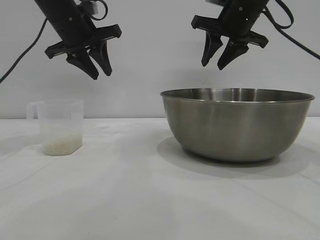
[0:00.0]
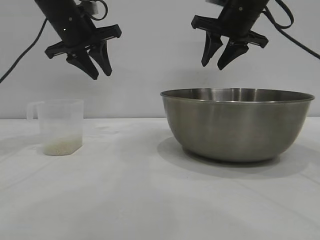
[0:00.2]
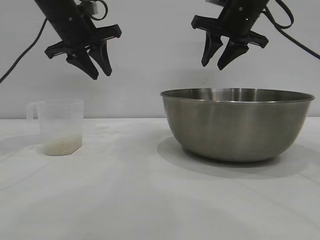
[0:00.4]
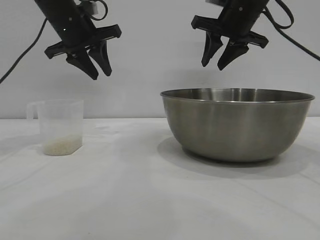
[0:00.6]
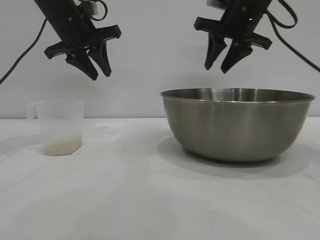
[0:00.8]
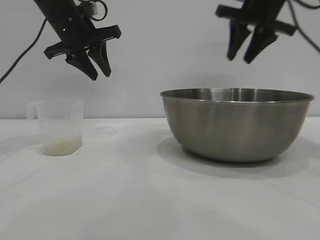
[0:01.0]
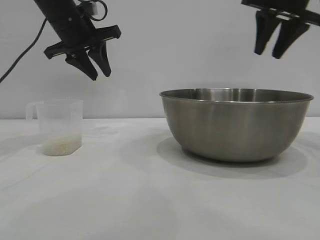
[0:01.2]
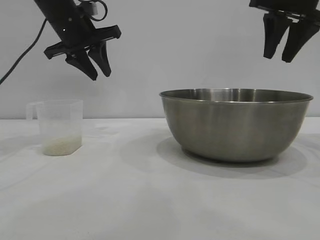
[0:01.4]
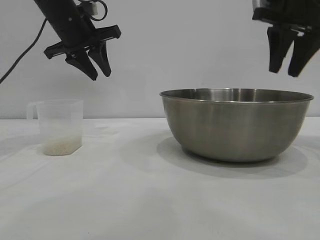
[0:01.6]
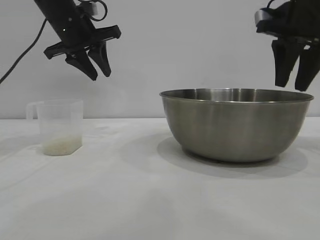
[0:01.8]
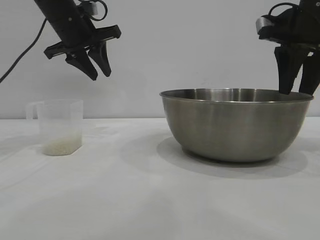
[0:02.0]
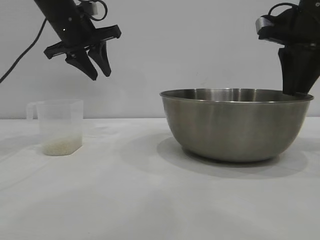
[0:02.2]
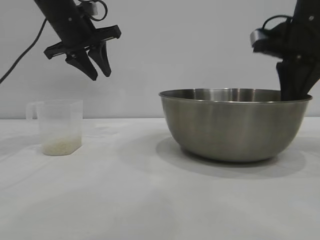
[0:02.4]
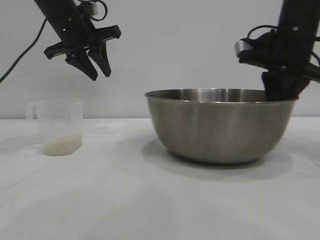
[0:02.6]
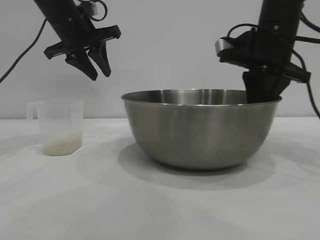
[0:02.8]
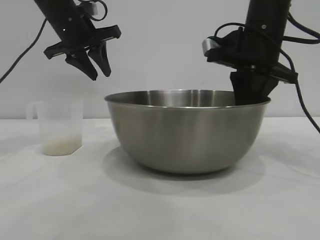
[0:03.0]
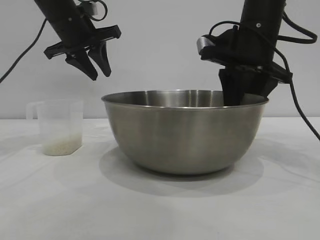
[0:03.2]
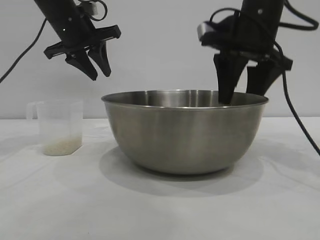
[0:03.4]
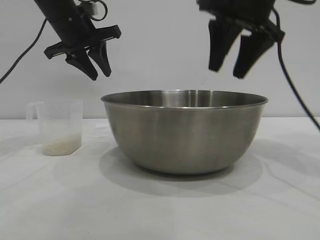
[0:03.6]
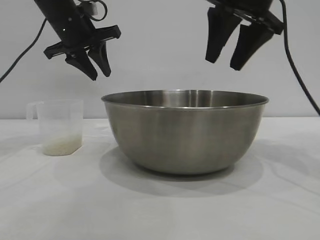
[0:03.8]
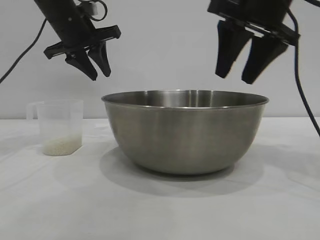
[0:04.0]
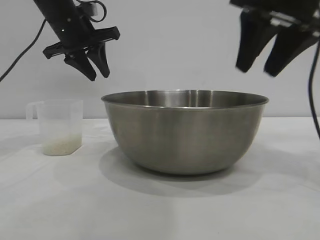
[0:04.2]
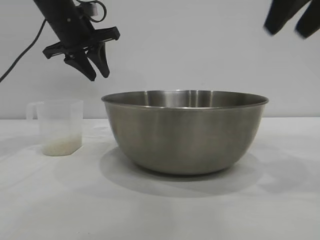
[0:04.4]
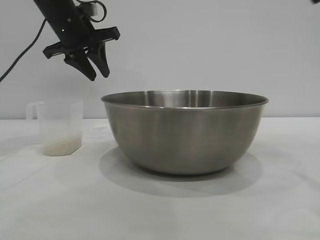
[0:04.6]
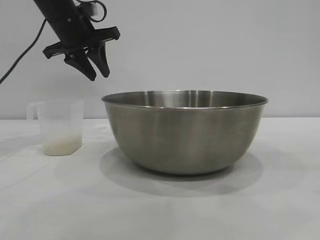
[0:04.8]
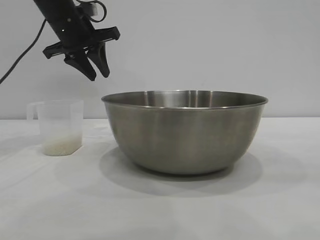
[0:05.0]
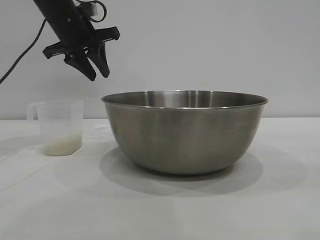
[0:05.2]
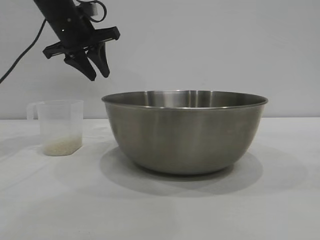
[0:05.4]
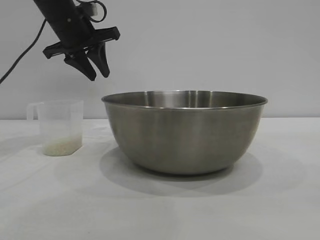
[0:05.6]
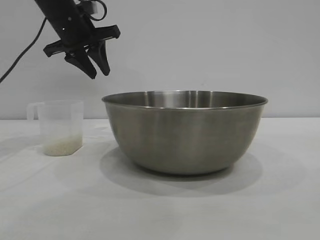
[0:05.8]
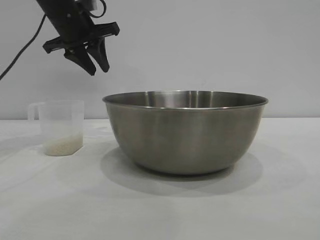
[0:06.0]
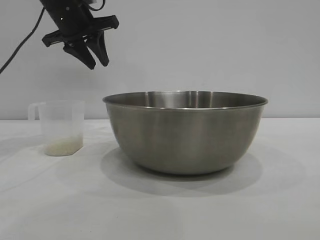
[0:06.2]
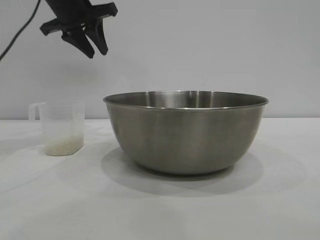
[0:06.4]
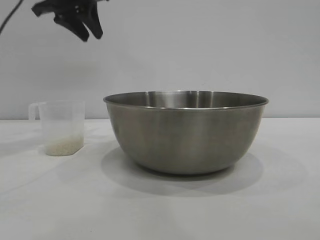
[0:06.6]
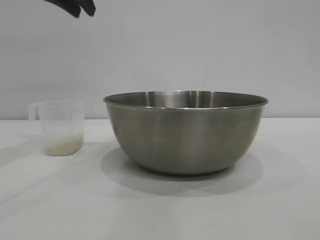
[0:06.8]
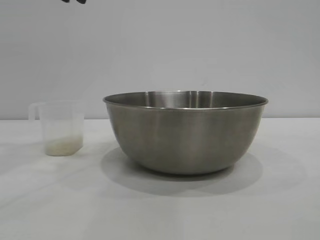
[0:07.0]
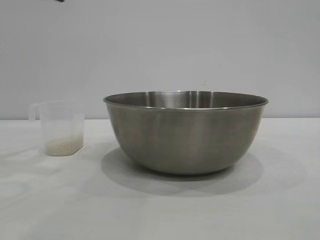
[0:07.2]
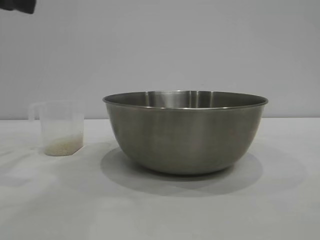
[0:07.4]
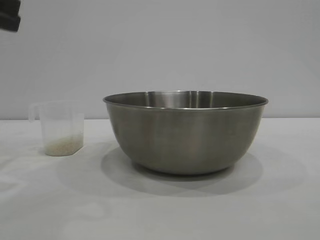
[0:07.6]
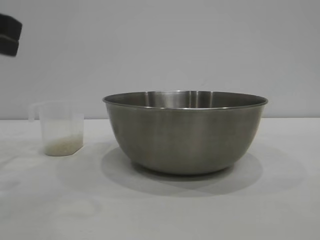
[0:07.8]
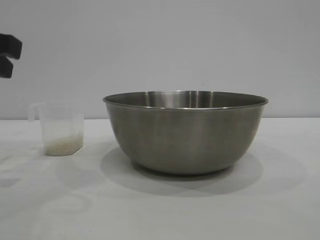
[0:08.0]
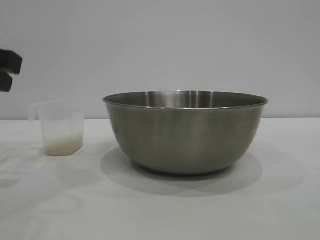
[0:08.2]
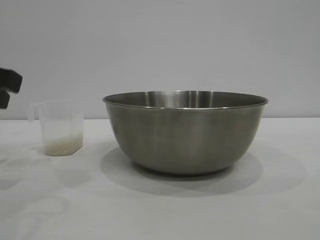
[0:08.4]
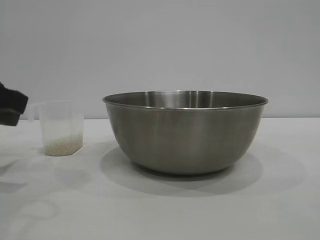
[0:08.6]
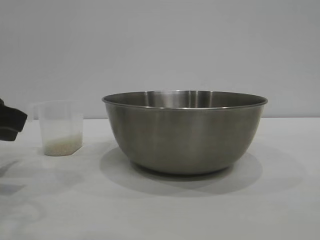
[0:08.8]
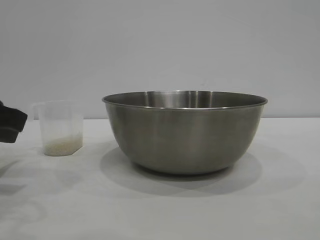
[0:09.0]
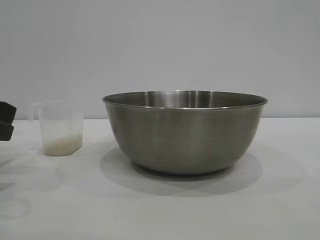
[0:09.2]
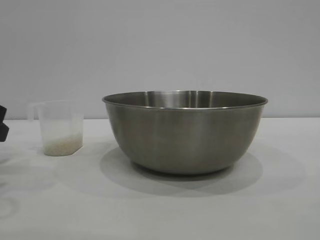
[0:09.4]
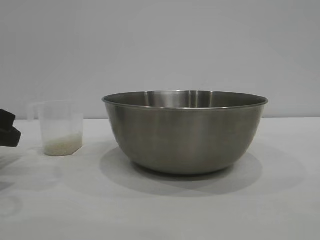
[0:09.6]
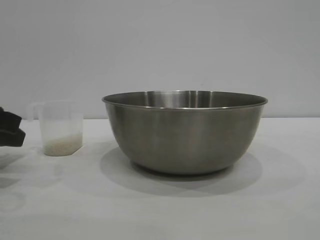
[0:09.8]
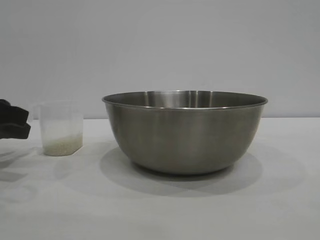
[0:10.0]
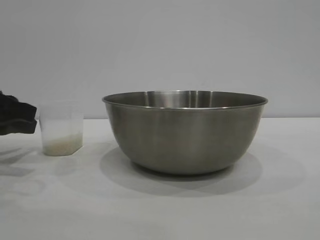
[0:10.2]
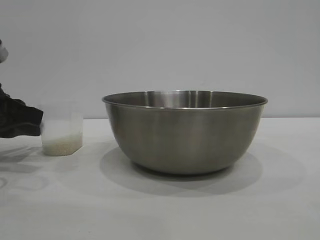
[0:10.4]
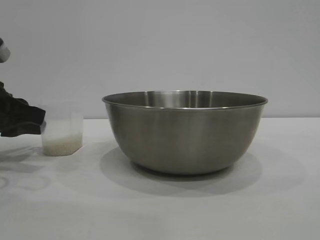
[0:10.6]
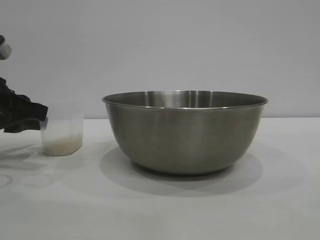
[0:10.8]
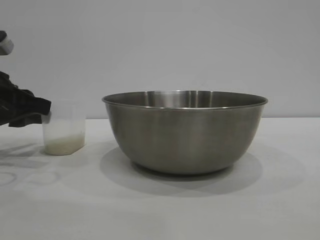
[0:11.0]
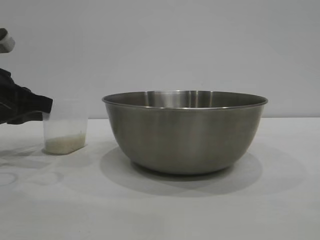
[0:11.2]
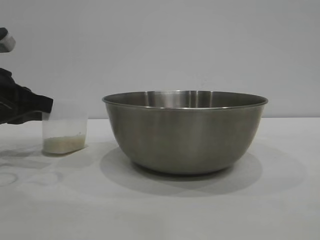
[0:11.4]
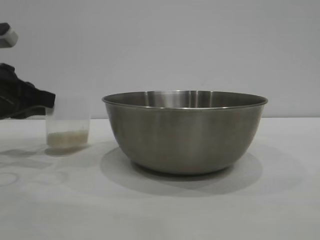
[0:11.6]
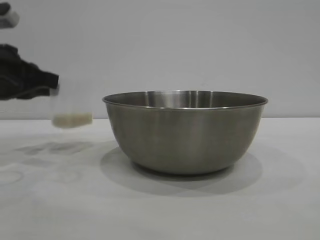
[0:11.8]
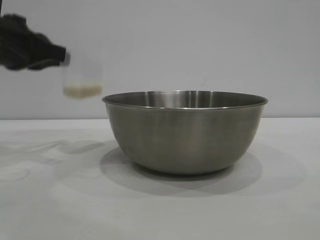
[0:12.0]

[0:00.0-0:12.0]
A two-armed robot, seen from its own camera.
Task of the whole recording: the right gripper grasp the rice container and place it in the center of the table, the left gripper grasp the rice scoop and pour the rice into the rice container.
Step, 0:00.0 to 0:03.4: Move the bowl to the center of view with the right gripper.
Step, 0:03.6 to 0:12.0: Pick up the cup with rice in it with the left gripper.

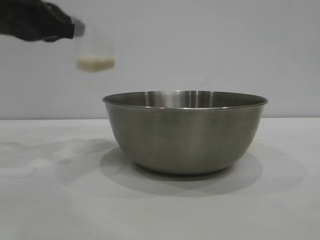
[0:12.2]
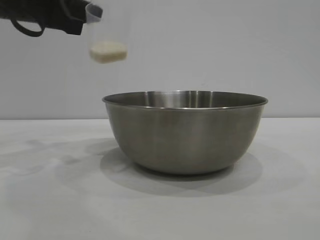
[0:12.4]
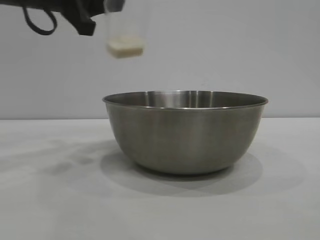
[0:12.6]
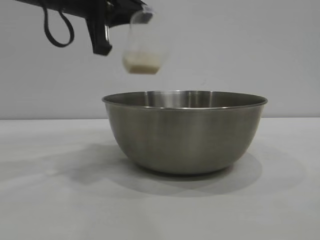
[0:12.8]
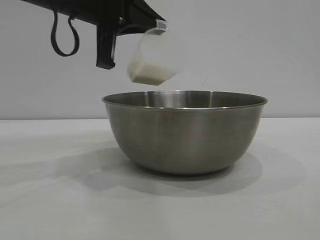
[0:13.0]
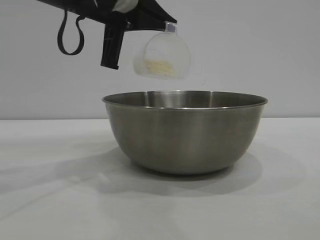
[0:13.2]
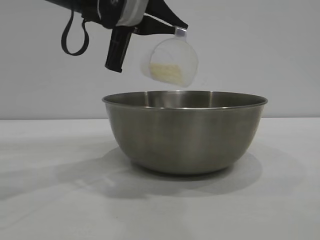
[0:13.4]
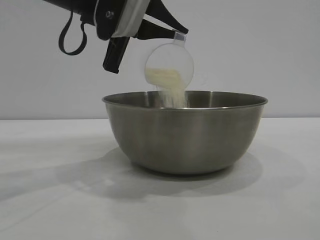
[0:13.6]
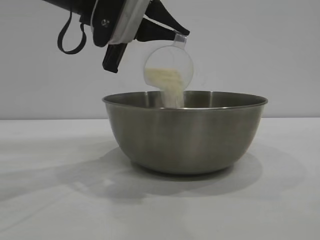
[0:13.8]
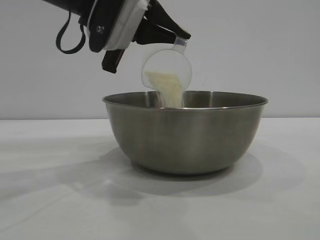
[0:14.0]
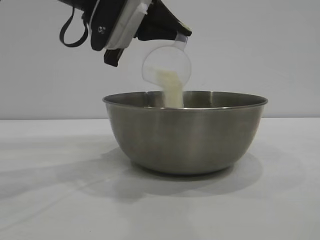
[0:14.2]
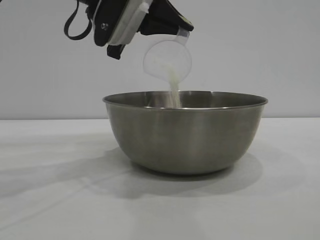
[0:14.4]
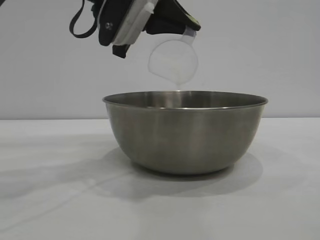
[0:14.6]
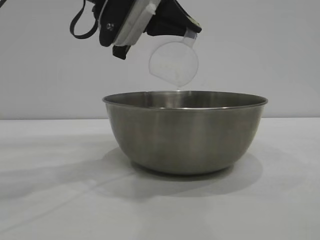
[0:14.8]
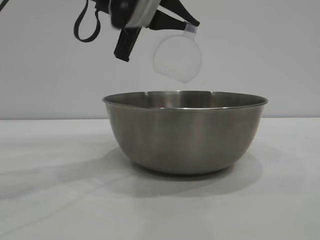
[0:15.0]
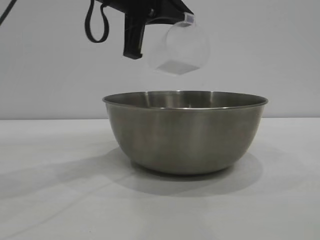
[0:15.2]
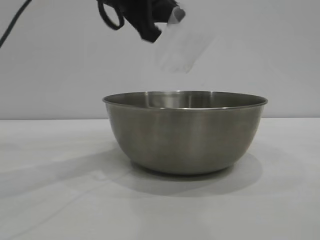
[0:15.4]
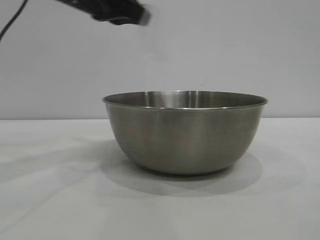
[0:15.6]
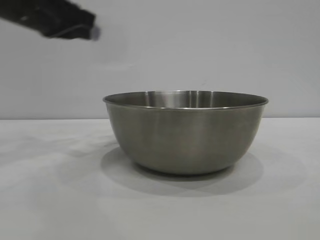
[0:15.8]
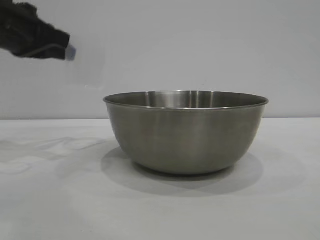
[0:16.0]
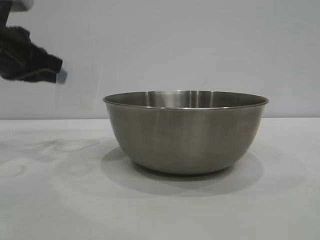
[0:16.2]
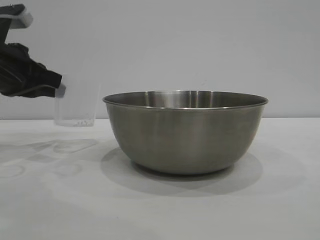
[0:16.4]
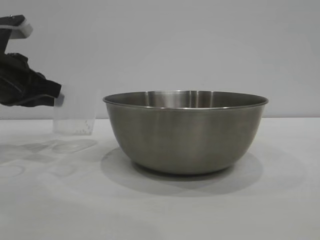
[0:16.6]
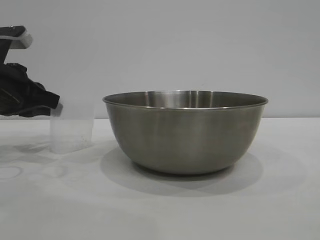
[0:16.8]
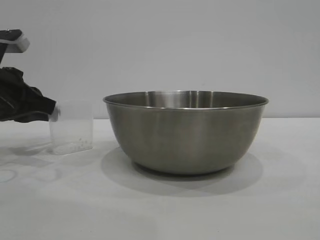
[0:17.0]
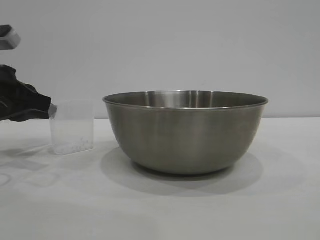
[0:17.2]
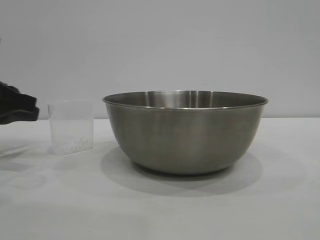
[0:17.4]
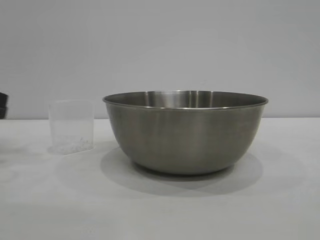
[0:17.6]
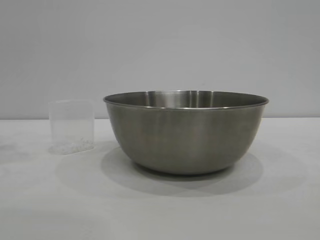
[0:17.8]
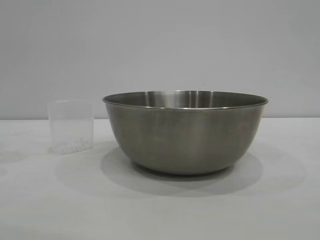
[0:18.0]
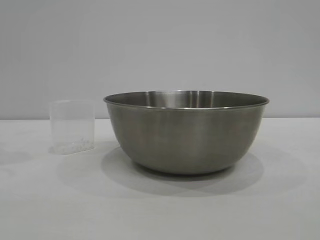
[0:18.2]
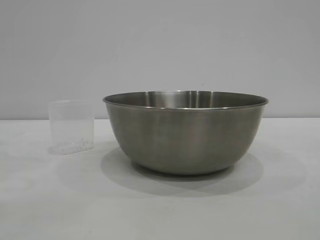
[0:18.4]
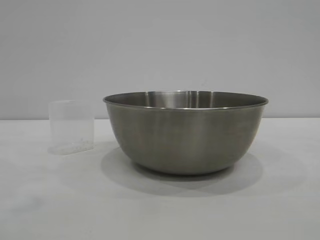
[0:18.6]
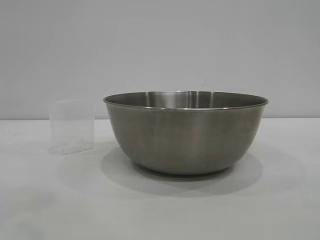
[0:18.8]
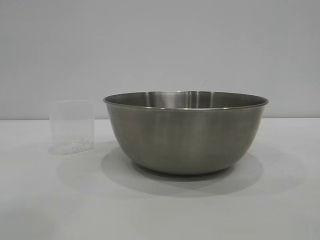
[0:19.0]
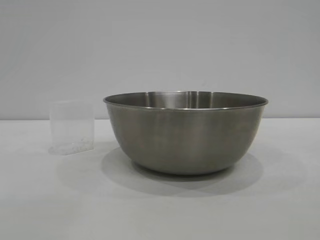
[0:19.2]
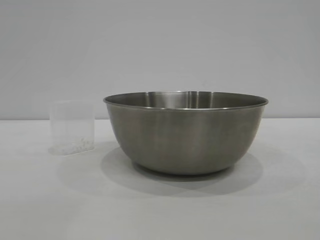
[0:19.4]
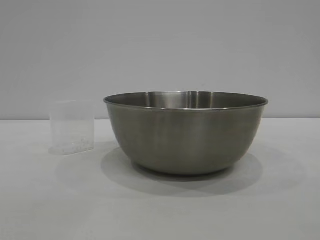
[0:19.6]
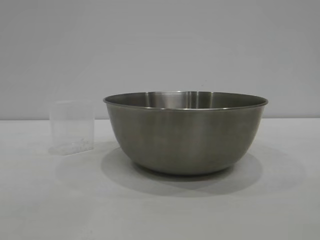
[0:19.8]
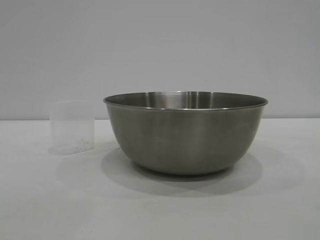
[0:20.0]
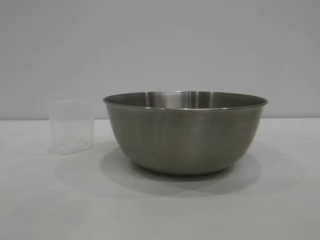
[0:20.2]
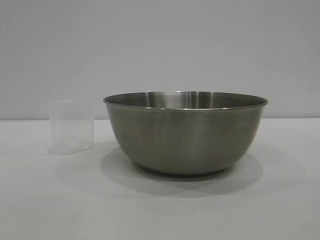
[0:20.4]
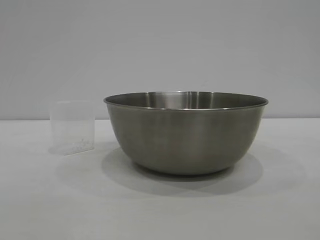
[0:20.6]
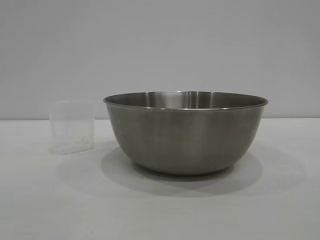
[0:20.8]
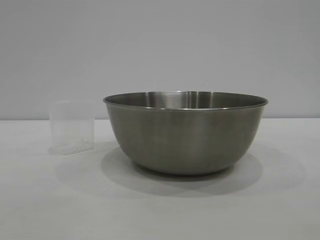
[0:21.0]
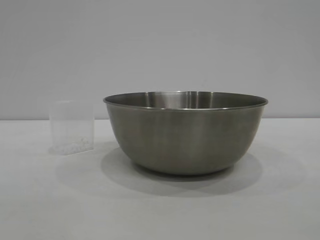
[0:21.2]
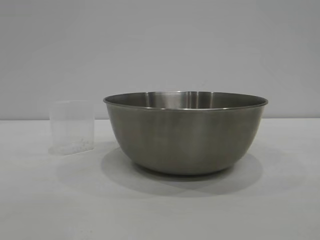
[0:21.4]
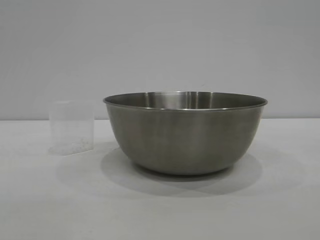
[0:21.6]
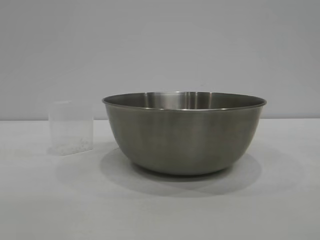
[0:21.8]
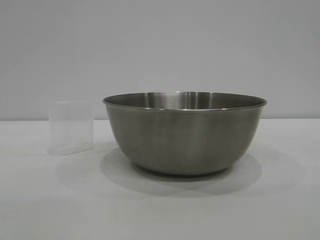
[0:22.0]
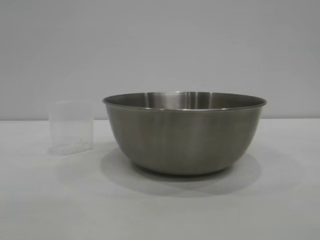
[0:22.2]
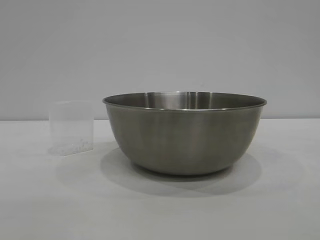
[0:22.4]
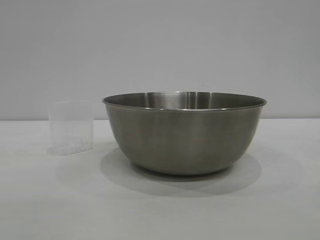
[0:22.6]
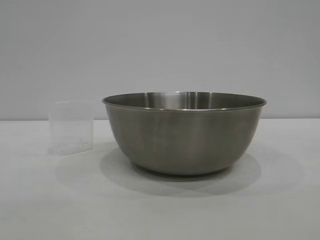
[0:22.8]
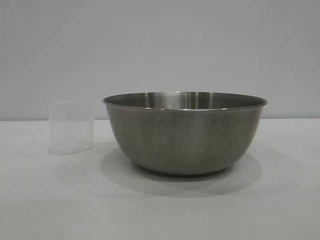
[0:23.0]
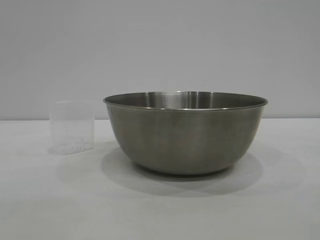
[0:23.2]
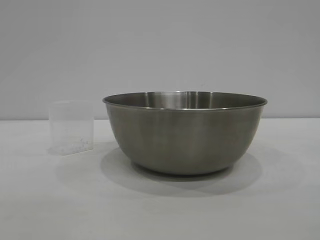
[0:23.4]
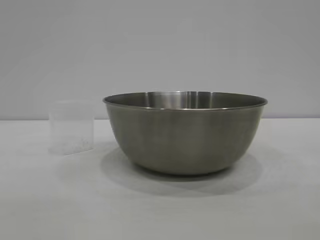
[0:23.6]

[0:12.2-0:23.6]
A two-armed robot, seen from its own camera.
Task of the whole recording: the right gripper grasp the rice container and place it in the center of the table, the left gripper grasp the rice scoop and pour the rice into the rice container.
Step, 0:12.2 to 0:15.2: Pour the rice from the cup into the bowl with the left gripper.
Step, 0:15.4 to 0:18.0: Place the cup on the table with the left gripper.
